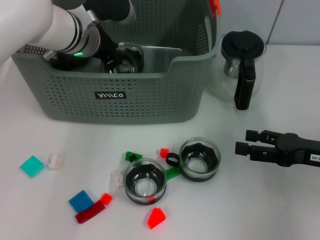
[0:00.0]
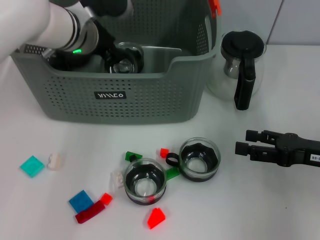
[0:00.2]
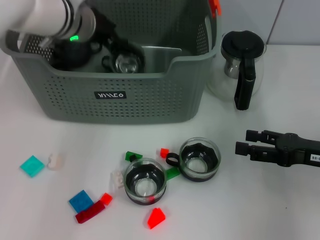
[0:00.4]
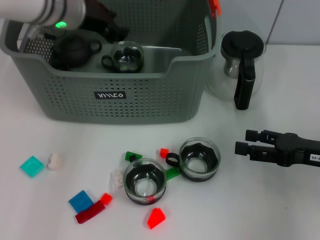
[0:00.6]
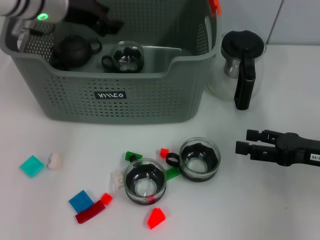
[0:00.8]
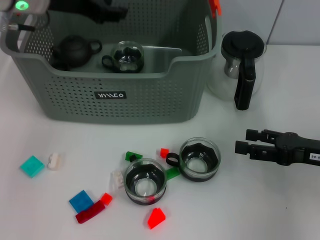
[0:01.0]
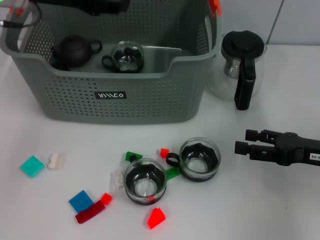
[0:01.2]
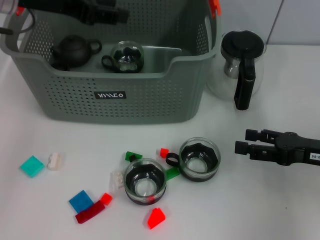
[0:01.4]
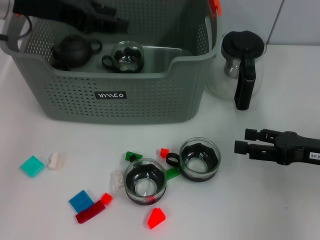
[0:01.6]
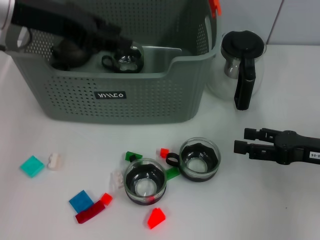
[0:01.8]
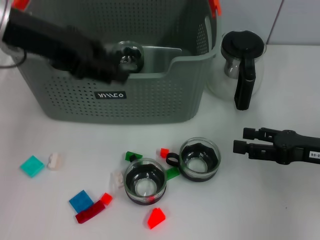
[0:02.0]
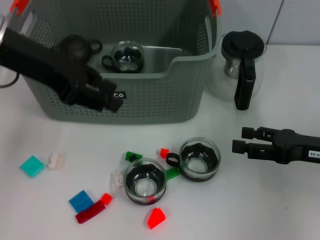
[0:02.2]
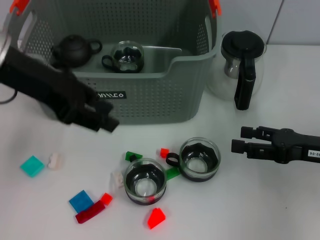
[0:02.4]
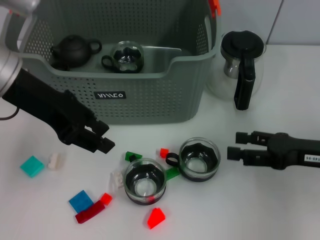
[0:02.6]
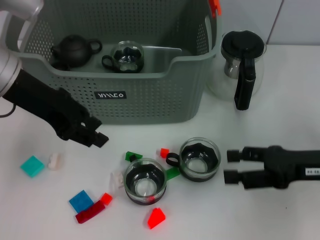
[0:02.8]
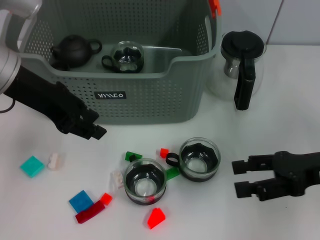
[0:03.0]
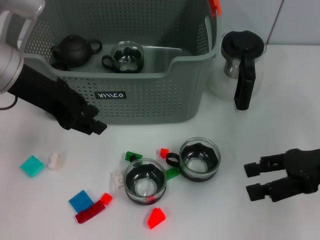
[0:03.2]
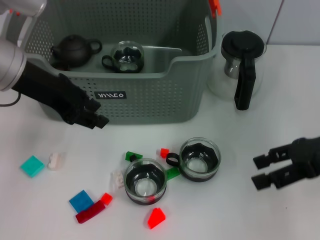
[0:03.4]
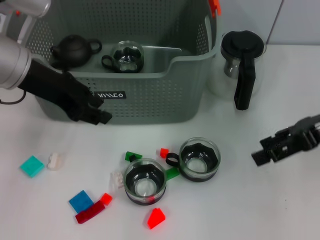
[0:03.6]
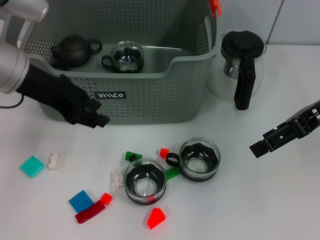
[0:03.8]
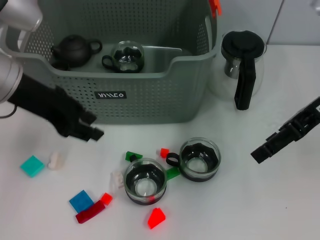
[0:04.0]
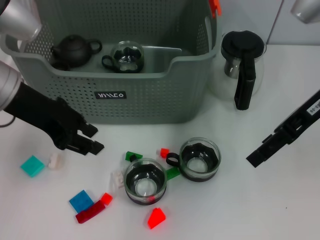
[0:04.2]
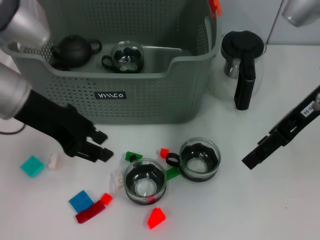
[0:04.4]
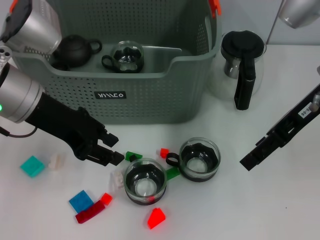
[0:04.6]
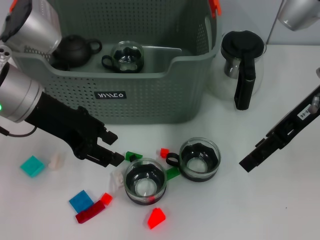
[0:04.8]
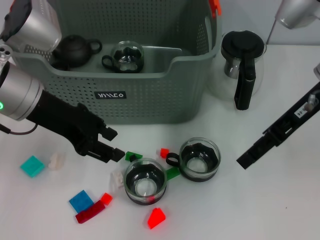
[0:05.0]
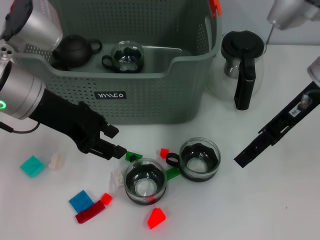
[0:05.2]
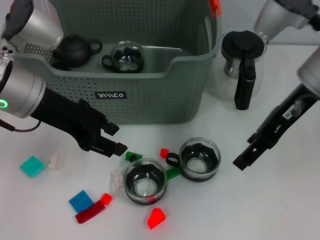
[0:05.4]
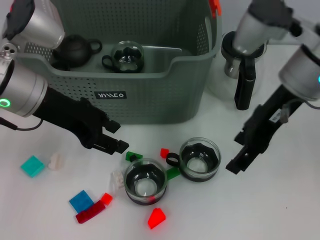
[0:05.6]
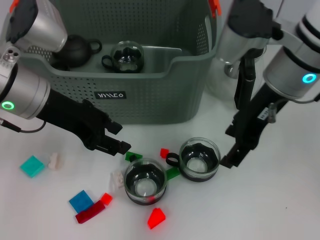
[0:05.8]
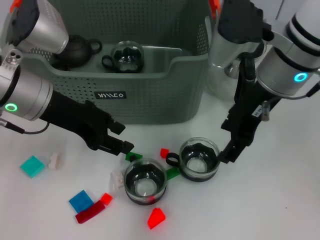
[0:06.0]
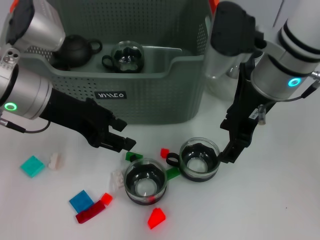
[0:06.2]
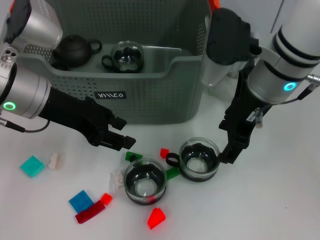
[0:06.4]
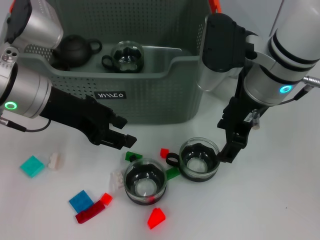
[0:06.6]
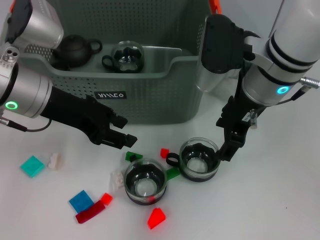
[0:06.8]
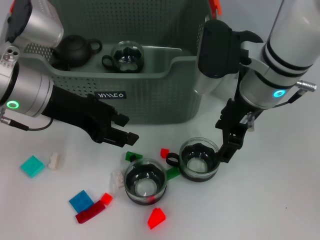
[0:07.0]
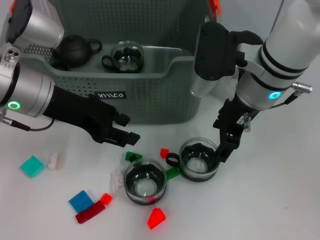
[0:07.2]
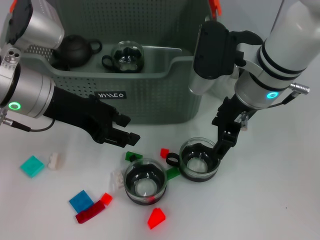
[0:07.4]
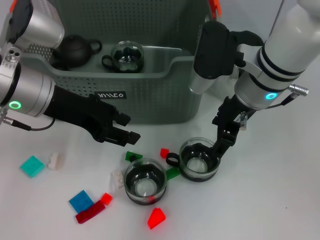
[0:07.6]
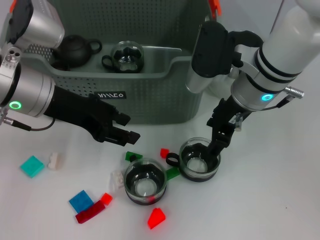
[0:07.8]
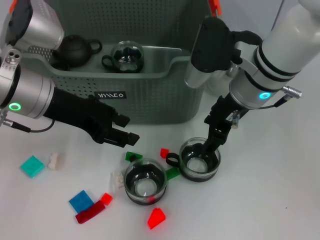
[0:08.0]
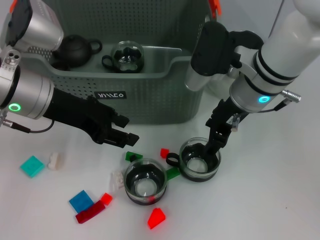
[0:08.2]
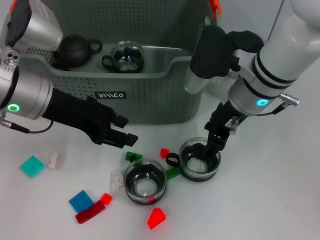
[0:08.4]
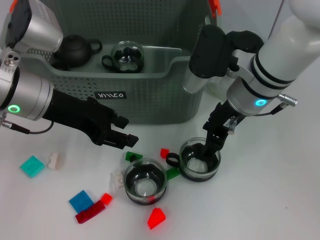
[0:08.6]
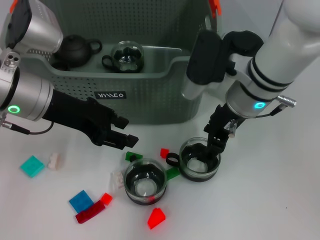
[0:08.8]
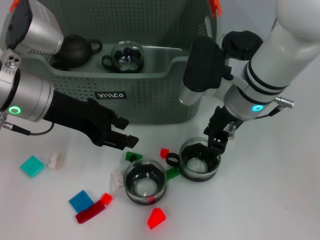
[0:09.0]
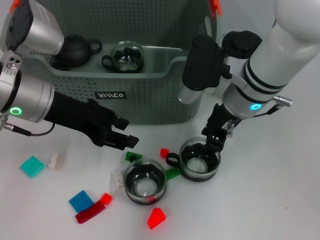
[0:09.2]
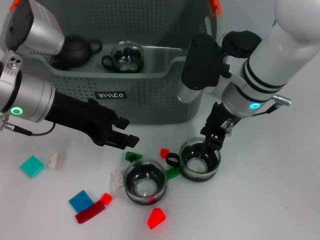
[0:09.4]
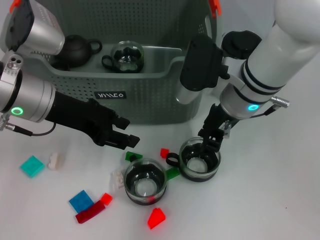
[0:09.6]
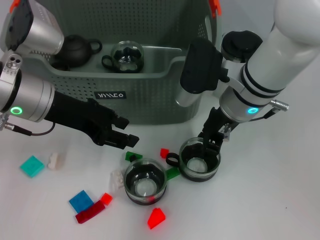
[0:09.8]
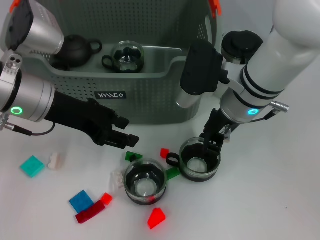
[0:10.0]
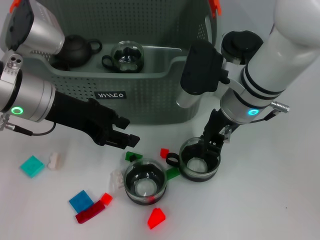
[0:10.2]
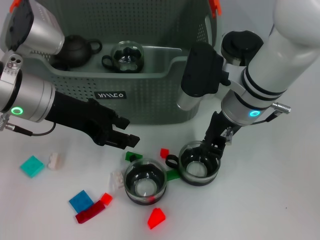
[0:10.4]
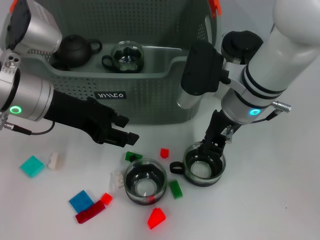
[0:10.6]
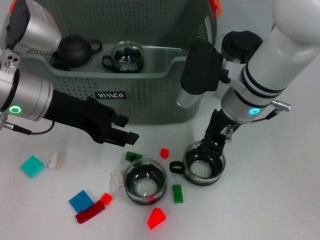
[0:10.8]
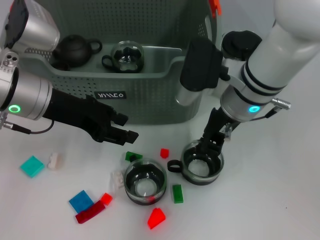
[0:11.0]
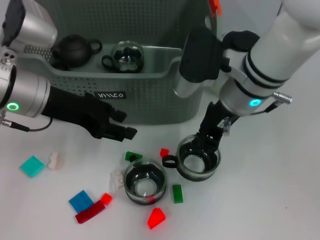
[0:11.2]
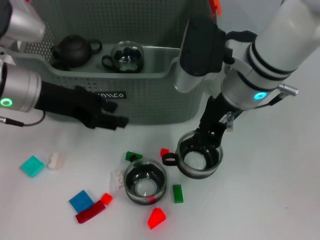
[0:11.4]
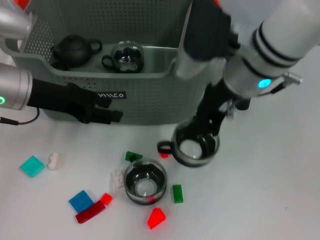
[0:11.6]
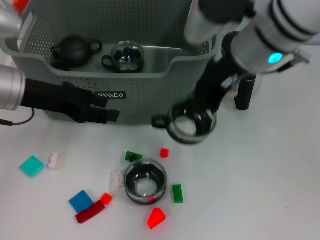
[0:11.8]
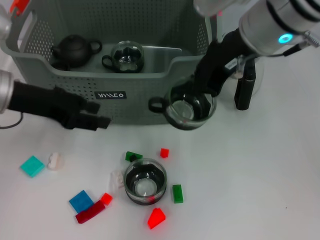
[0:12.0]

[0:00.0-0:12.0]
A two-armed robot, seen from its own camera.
Task of the whole recording: pick up the teacup on the table and place it into the storage bin, pick up the block on the table and place it into the storage bin.
Step, 0:00.8 to 0:11.2: Grasp the cup with right gripper.
0:00.0 to 0:01.6: The left gripper shifts about 15 cm upward, to the left and backward.
0:01.6 to 0:03.0: The left gripper ends up some 5 cm from where it was.
0:03.0 to 0:04.4: The right gripper goes roughly 15 cm upward, forward and to the left.
0:04.4 to 0:06.0: The right gripper shifts approximately 10 cm to the left.
0:06.0 to 0:07.6: The right gripper moves some 5 cm.
0:07.6 to 0:09.0: The grippers make only small movements.
0:09.0 to 0:10.4: The right gripper closes up.
0:10.4 to 0:12.0: The right gripper moves upward, some 10 cm. Meanwhile the left gripper heads to the left, covering roughly 5 cm.

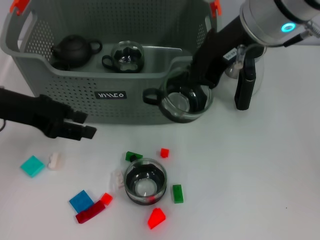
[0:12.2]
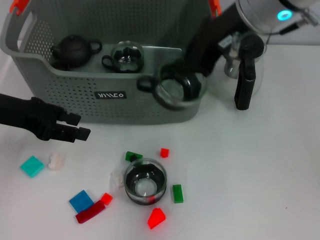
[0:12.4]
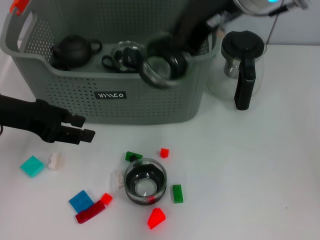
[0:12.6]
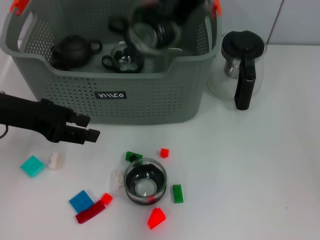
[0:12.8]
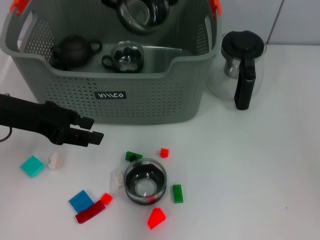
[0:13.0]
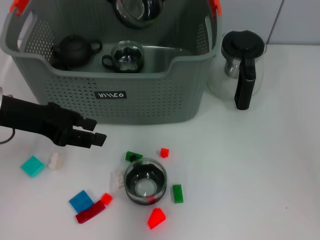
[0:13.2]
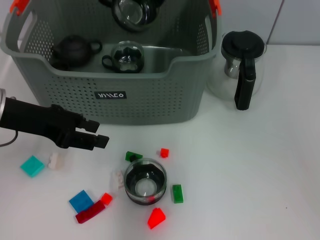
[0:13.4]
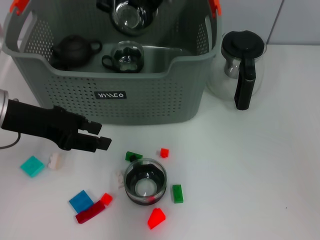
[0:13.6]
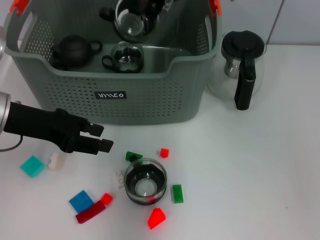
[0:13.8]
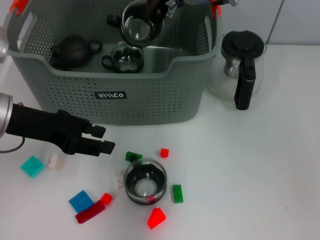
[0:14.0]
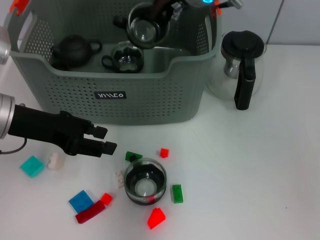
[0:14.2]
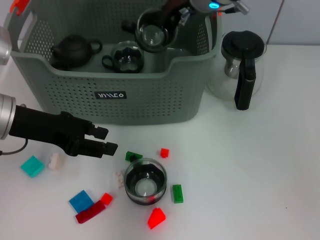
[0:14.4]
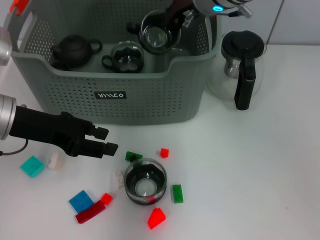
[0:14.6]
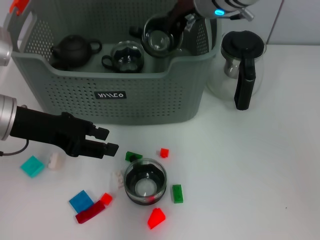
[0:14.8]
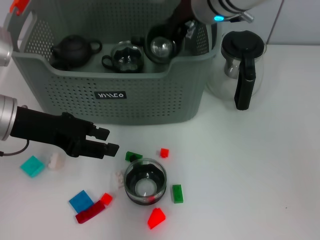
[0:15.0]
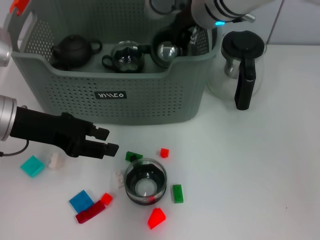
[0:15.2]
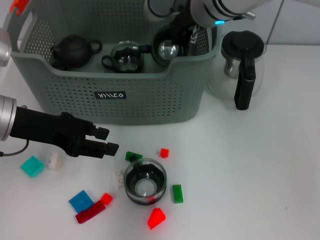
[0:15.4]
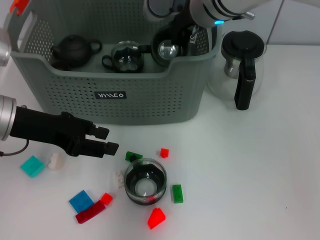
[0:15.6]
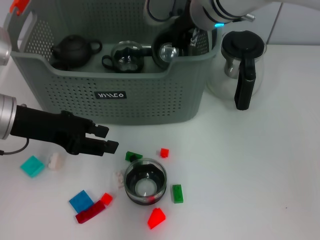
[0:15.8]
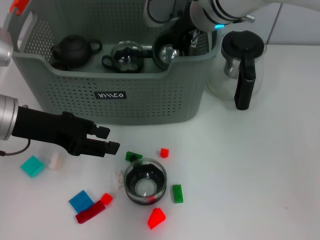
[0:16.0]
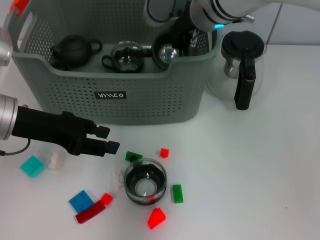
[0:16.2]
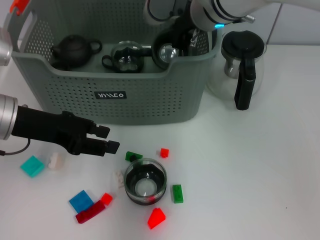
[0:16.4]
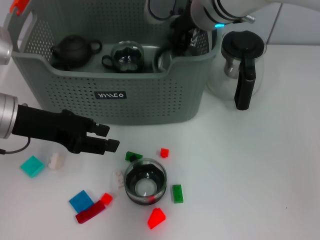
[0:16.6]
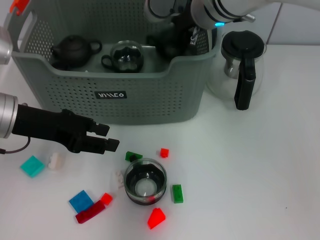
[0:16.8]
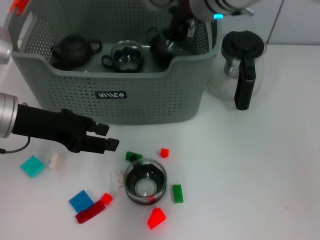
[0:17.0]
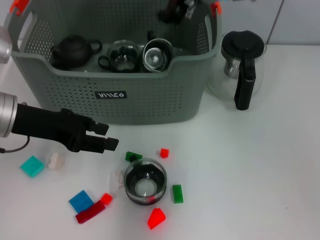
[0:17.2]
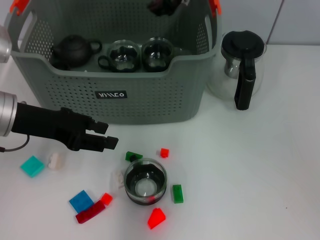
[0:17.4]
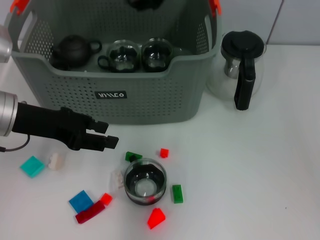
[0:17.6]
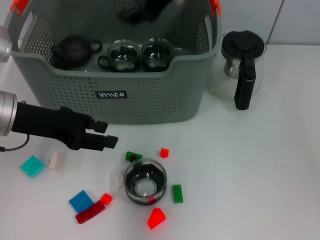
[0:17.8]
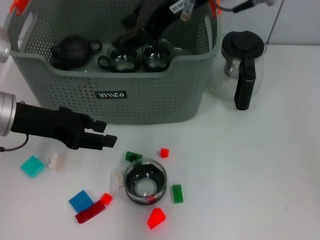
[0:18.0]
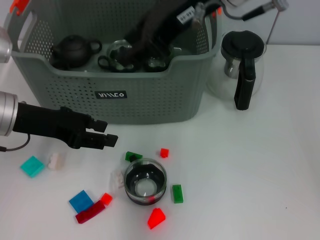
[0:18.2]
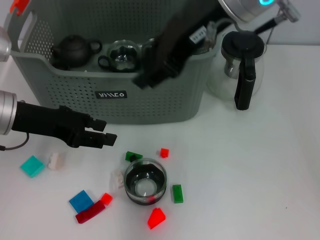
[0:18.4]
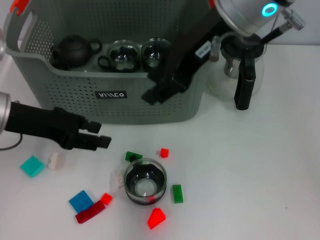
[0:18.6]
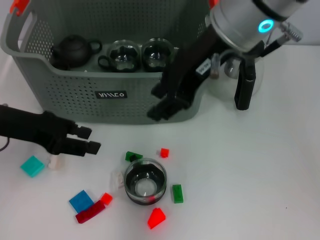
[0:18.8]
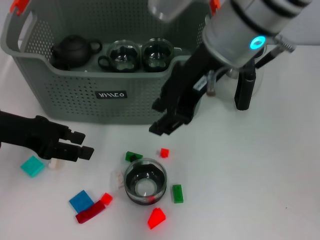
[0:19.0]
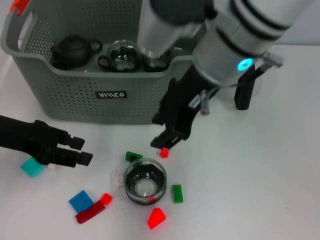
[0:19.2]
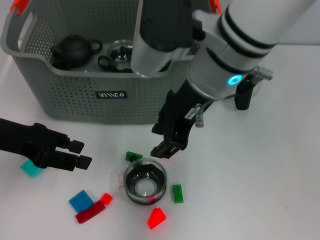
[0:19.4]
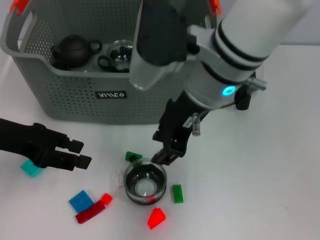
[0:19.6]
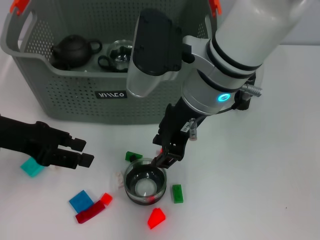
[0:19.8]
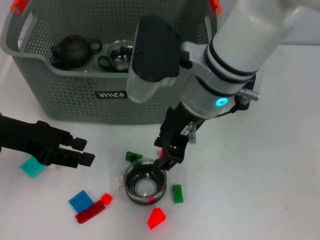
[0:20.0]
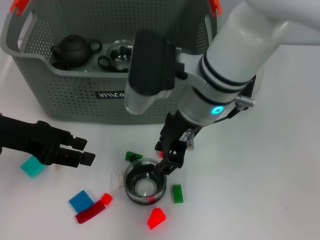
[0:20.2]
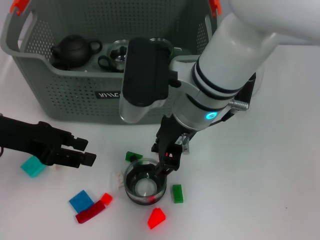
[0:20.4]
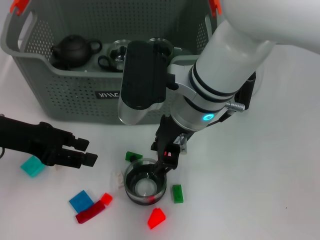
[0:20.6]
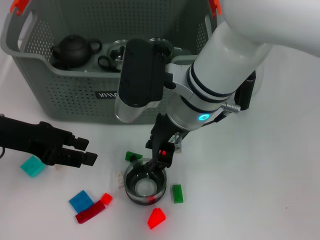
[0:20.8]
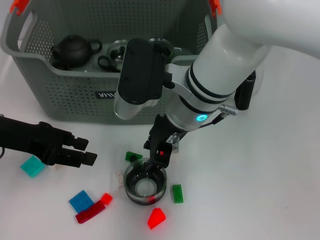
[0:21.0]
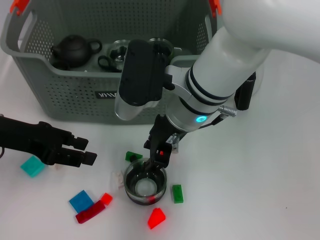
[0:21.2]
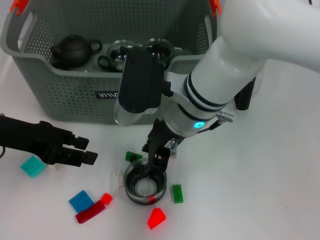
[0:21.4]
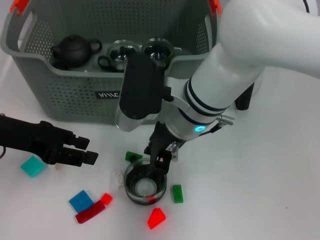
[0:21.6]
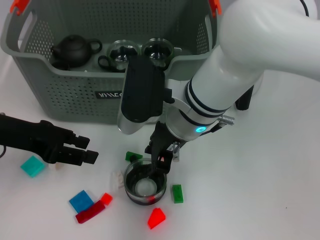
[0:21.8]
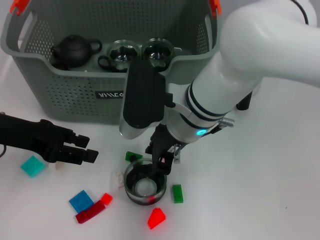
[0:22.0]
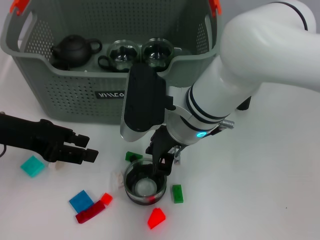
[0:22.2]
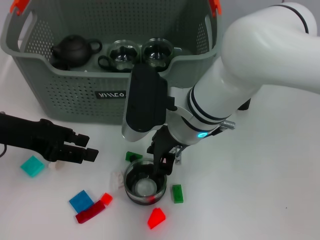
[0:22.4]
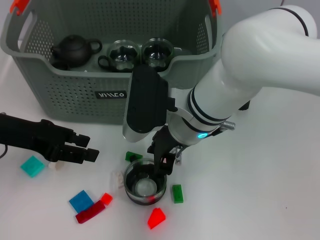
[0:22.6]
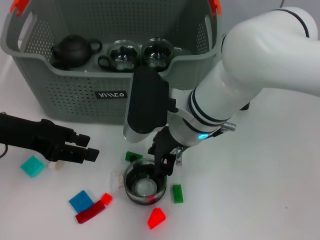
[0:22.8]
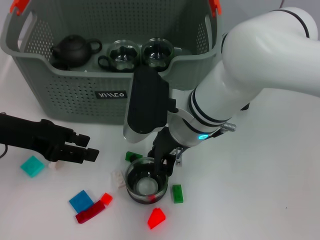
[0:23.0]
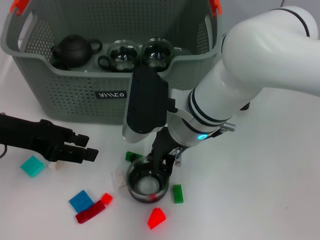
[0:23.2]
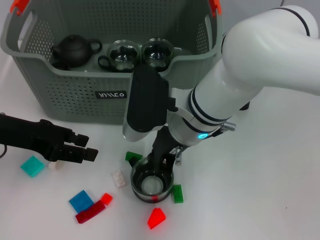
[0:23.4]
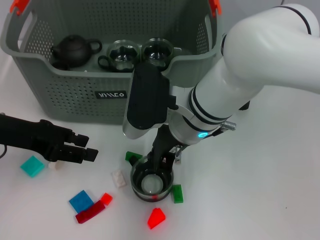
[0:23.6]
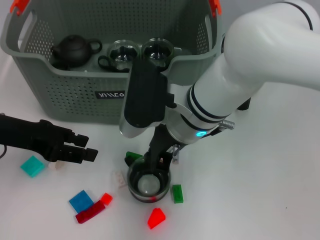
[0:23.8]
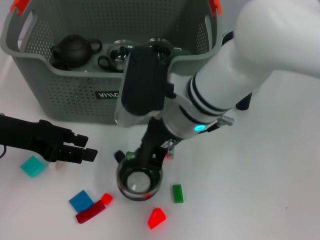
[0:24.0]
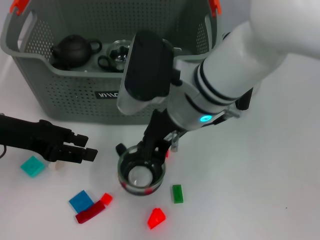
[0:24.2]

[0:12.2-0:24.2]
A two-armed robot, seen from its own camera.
Task of the whole recording: pick up the teacup on the table and place it into the storage bin, pick up the block on the table and place it into the storage bin.
Step, 0:12.2 to 0:17.2: Place the cup in the storage box with right gripper.
Step, 0:17.4 to 0:24.0: Grasp the cup with right gripper.
0:12.2 to 0:13.8: The right gripper heads forward and to the left, covering roughly 10 cm.
0:13.8 to 0:15.2: There are only small adjustments of the grippers.
0:15.2 to 0:16.6: The two grippers keep their place.
0:16.6 to 0:18.2: The right gripper travels upward and backward by roughly 15 cm, and opens its fingers.
0:18.2 to 0:19.8: The right gripper heads downward, covering roughly 10 cm.
0:19.8 to 0:21.2: The right gripper changes place by some 5 cm.
0:21.2 to 0:22.6: There are only small adjustments of the grippers.
0:22.6 to 0:24.2: The right gripper changes place by roughly 5 cm, and closes.
